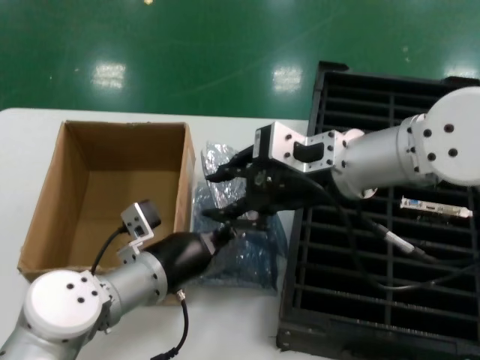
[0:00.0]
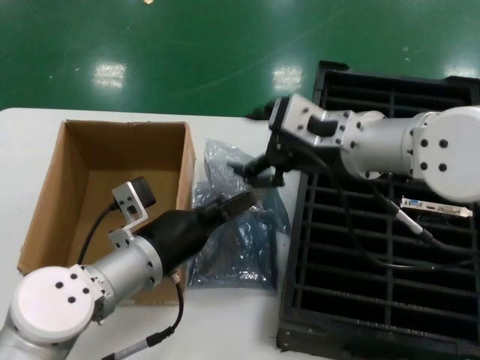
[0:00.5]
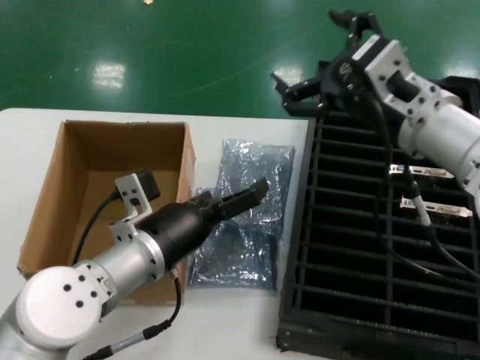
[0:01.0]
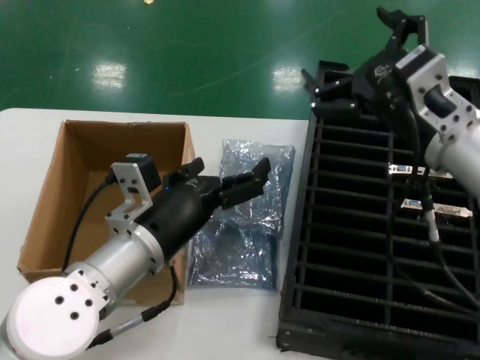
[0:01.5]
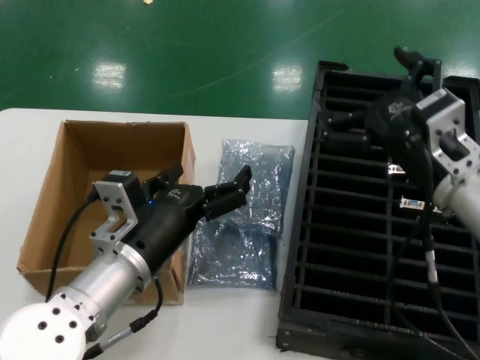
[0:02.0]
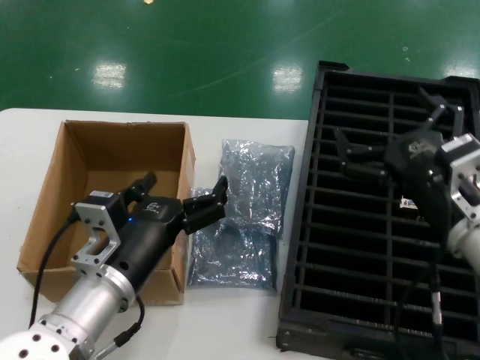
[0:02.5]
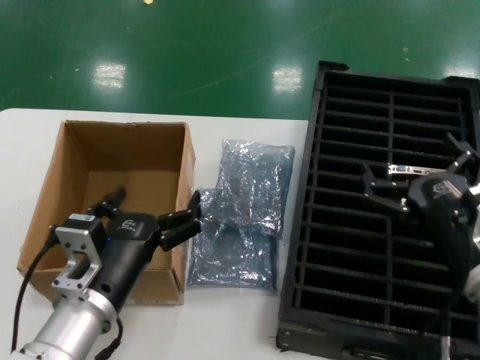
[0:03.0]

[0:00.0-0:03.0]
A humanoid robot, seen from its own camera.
Task of the whole recording: take out graphics card from box remove packaging put into black container.
Step, 0:00.0 to 0:02.5: Place the down the bag.
0:00.0 to 0:01.5: The left hand travels upward by some 5 cm. The right hand heads to the right, covering approximately 10 cm.
0:01.5 to 0:03.0: The right hand goes about 15 cm downward and backward; the left hand travels backward and downward by about 10 cm.

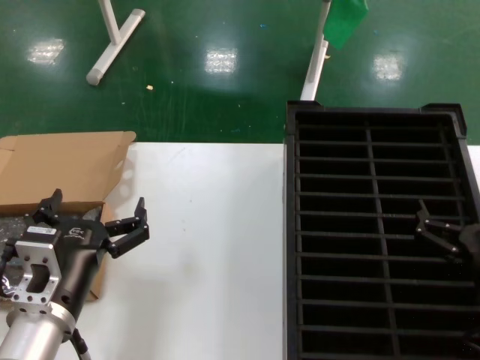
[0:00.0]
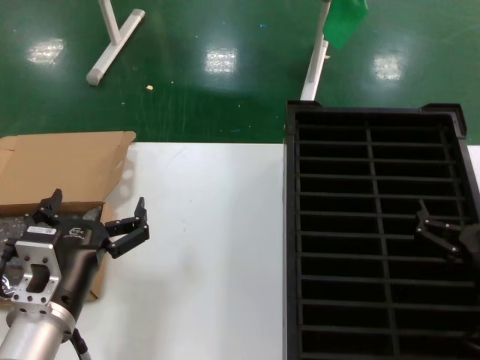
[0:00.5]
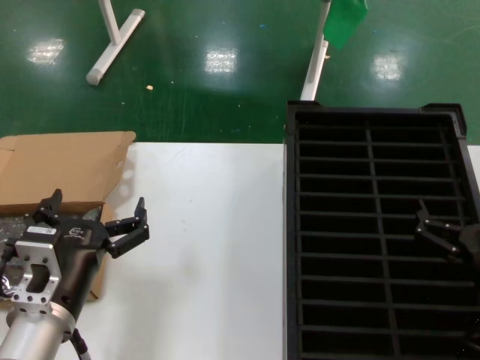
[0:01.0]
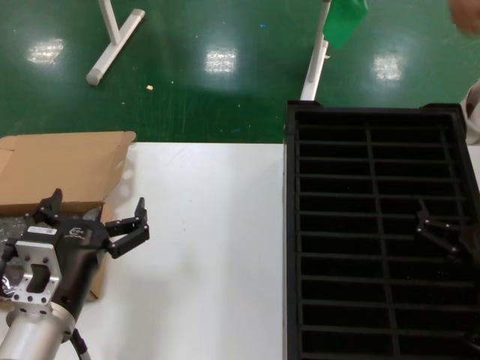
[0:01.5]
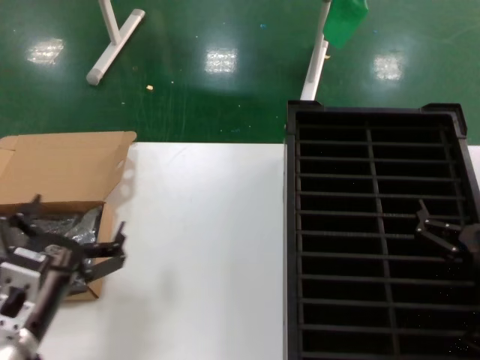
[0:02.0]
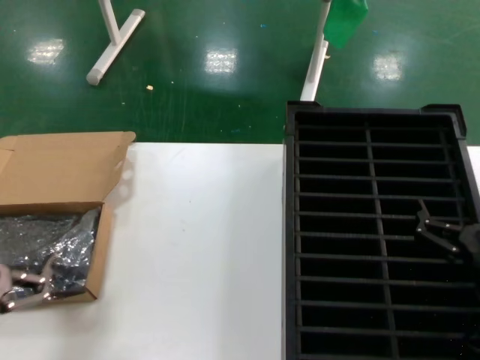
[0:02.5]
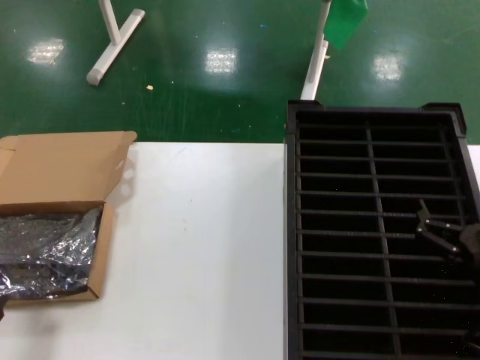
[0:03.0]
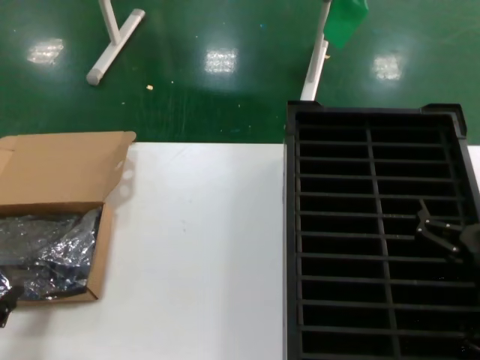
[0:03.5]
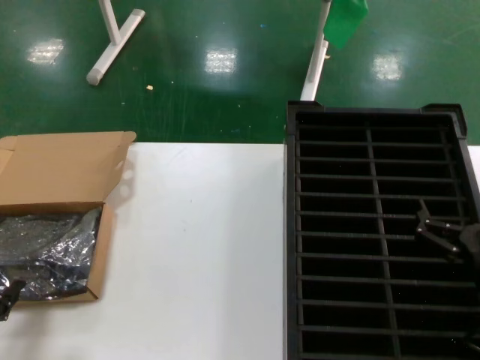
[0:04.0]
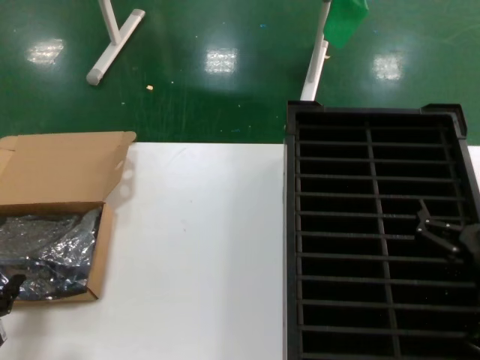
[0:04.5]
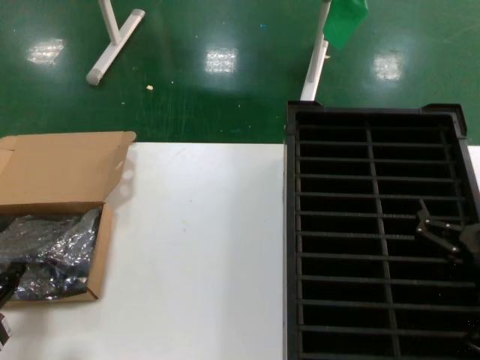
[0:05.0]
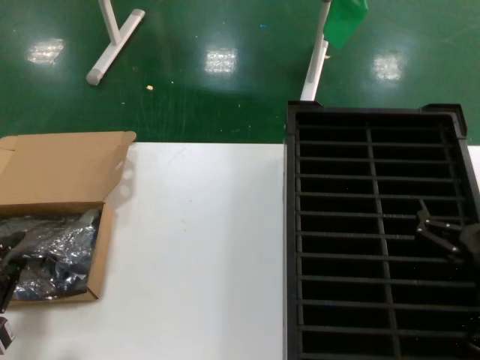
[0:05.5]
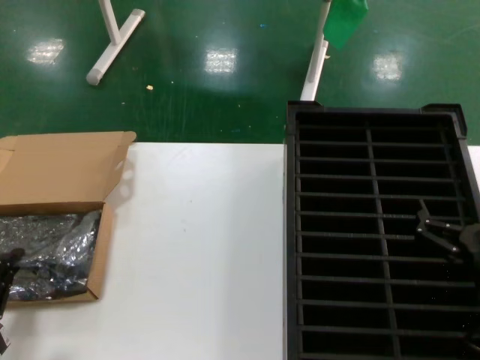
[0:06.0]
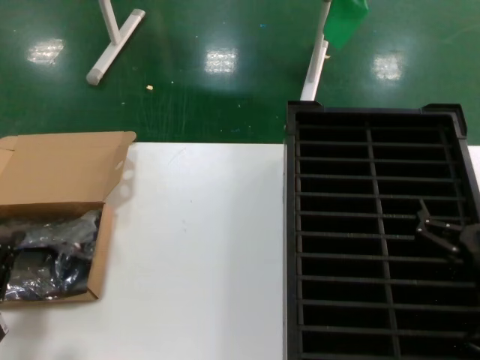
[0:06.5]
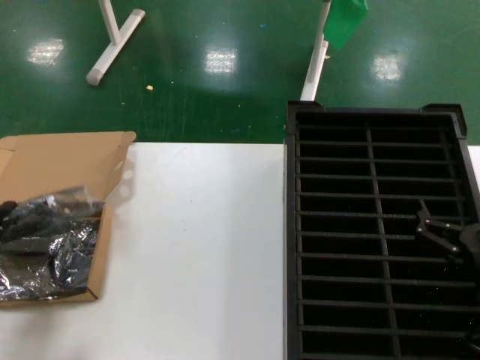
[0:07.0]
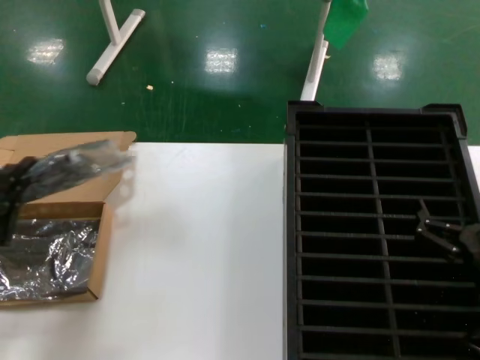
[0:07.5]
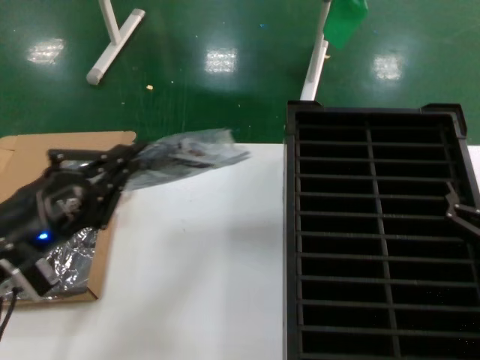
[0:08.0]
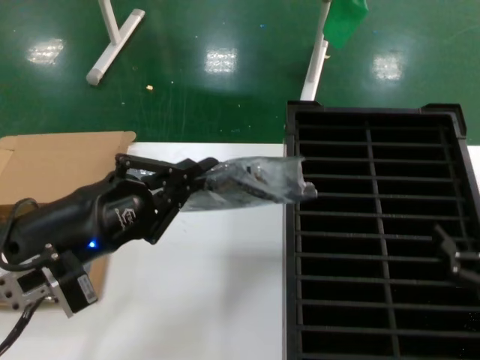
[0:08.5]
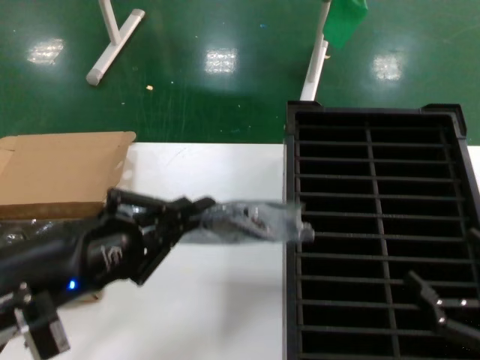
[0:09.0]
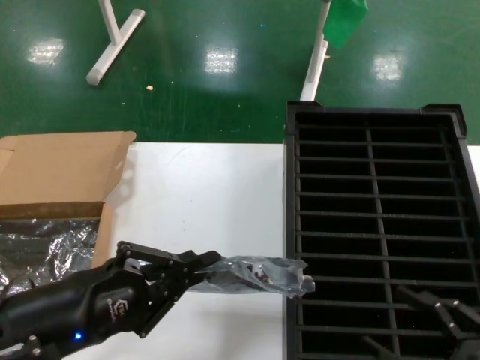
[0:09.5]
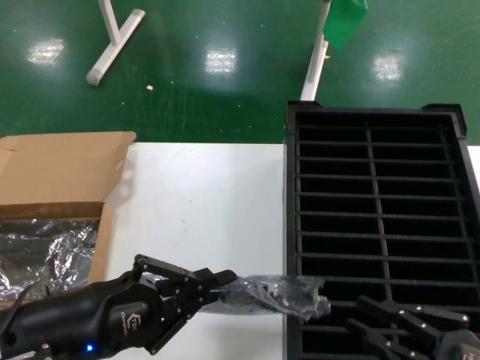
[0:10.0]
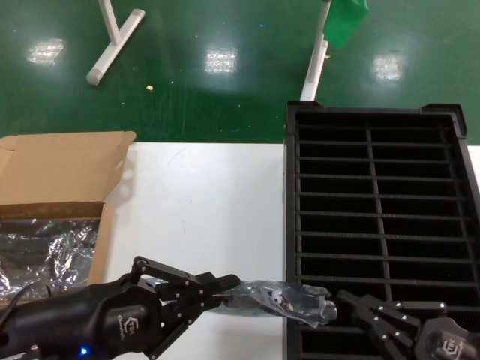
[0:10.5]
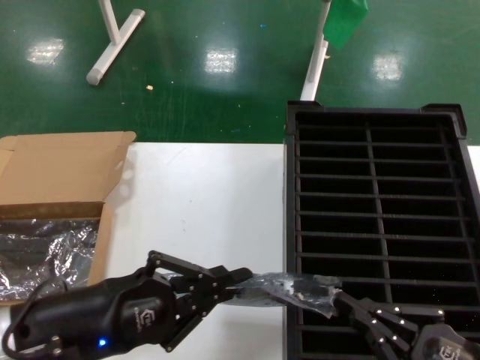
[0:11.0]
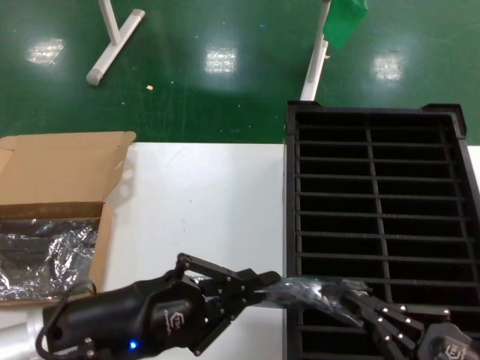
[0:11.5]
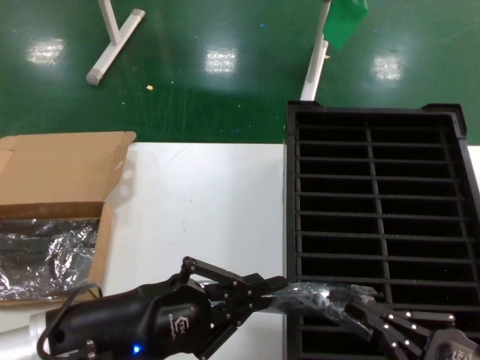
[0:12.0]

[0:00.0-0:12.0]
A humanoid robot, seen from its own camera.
Task of the whole recording: take out graphics card from box remove packaging put into black container.
Step, 0:00.0 to 0:06.0: Grasp the bag.
Step, 0:06.5 to 0:09.0: Lift the bag.
0:00.0 to 0:02.0: The hands stay close to where they were, moving slightly.
0:02.0 to 0:04.0: The left hand shifts approximately 15 cm to the left.
0:04.0 to 0:06.0: The hands make only small movements.
0:06.0 to 0:08.0: The left hand is displaced upward and to the right by about 20 cm.
0:08.0 to 0:10.0: The right hand travels backward and to the right by approximately 10 cm; the left hand changes place by some 5 cm.
0:10.0 to 0:12.0: The hands make only small movements.

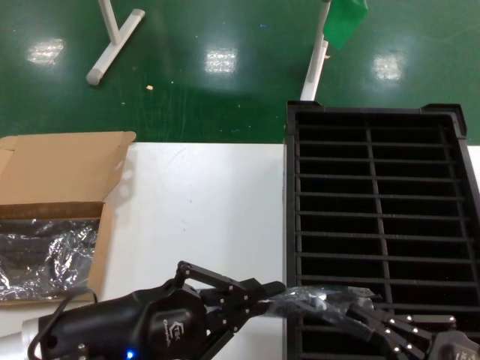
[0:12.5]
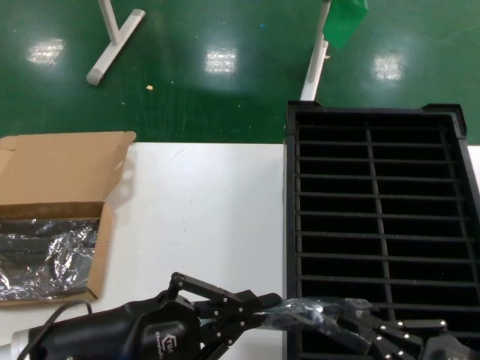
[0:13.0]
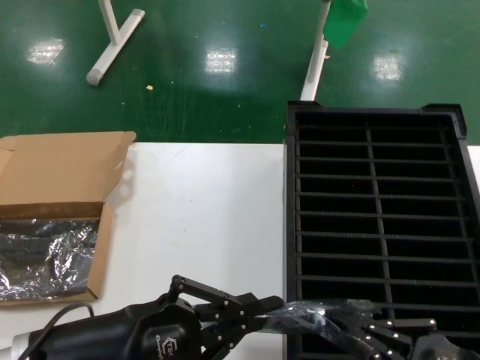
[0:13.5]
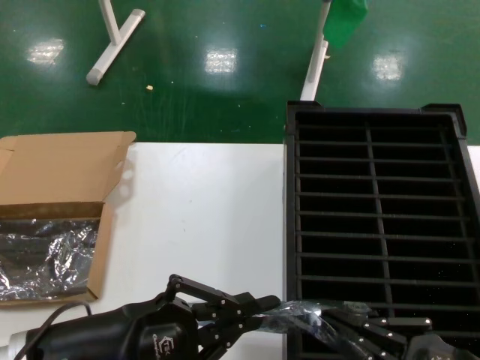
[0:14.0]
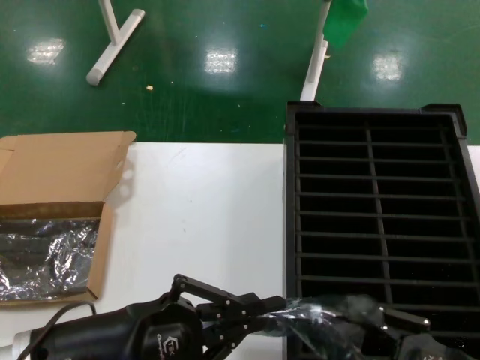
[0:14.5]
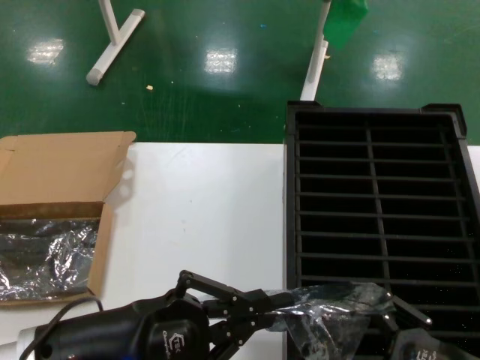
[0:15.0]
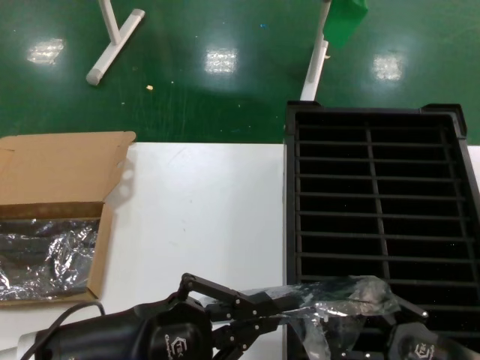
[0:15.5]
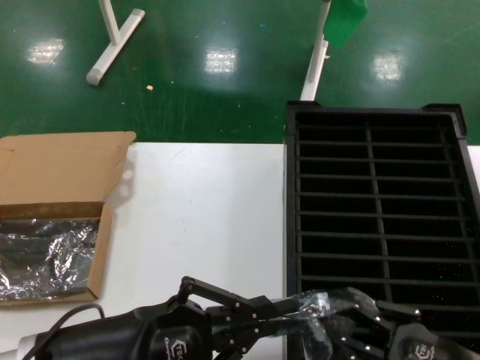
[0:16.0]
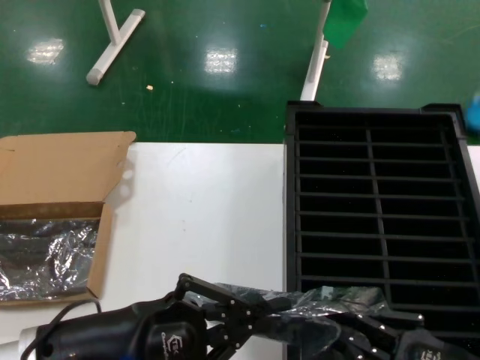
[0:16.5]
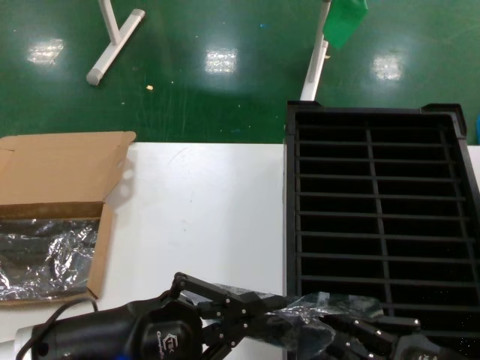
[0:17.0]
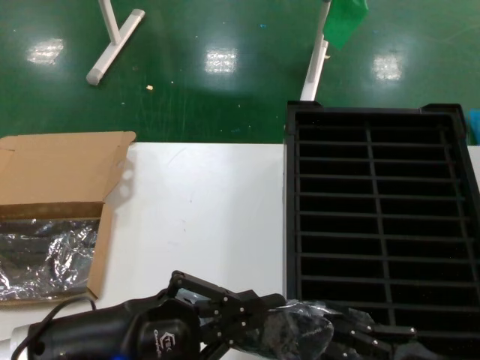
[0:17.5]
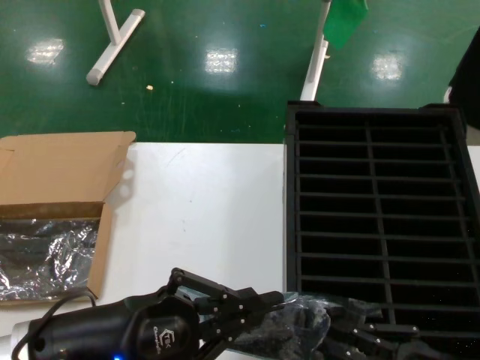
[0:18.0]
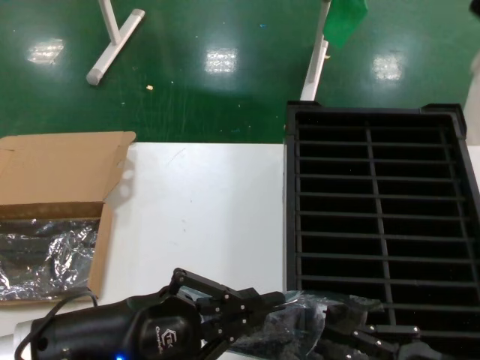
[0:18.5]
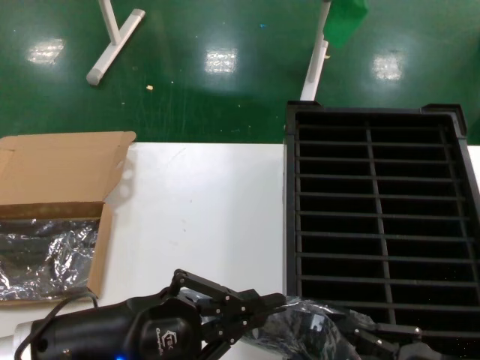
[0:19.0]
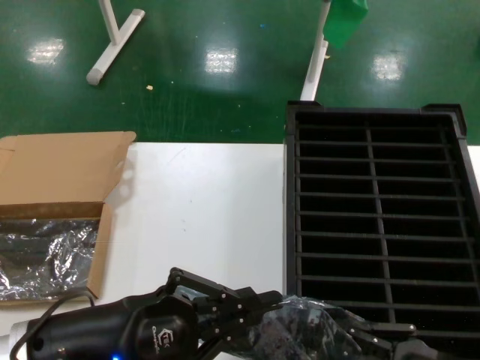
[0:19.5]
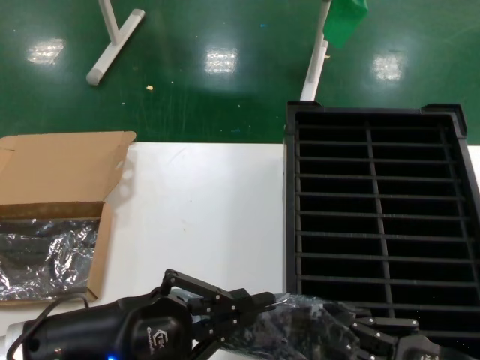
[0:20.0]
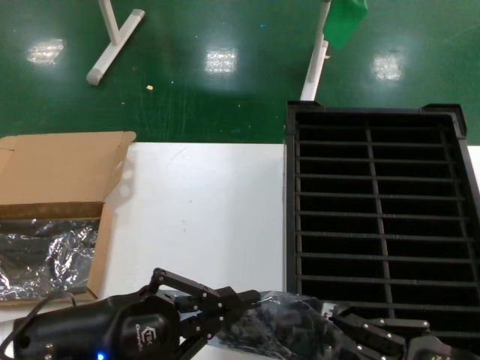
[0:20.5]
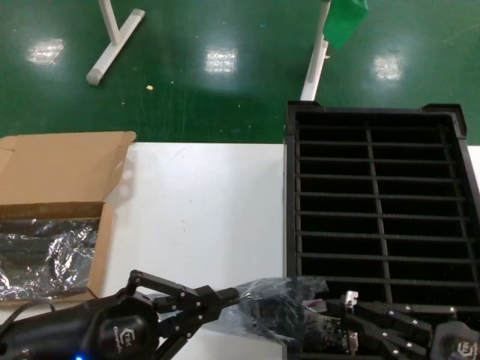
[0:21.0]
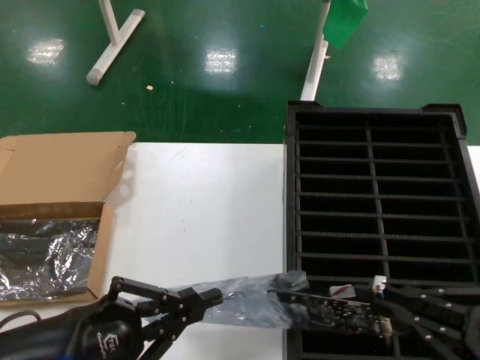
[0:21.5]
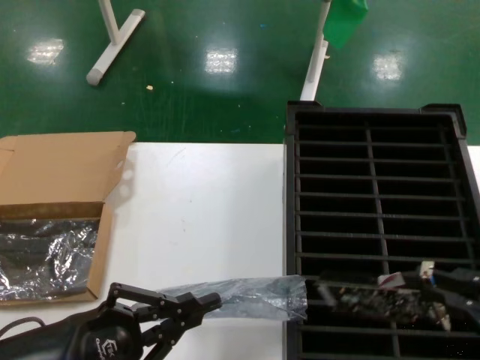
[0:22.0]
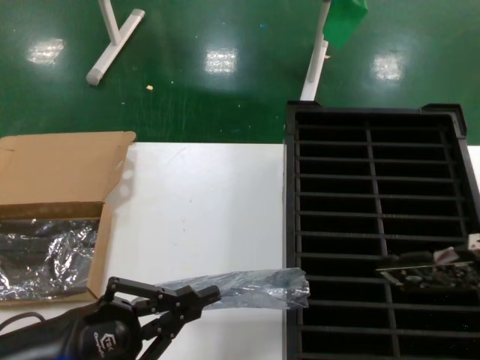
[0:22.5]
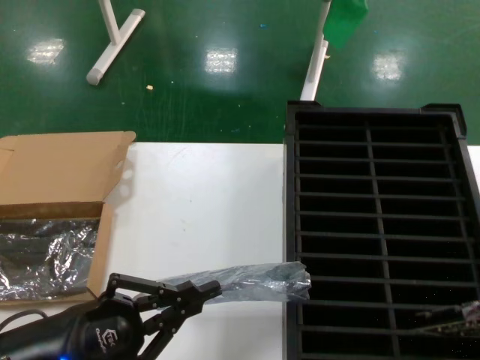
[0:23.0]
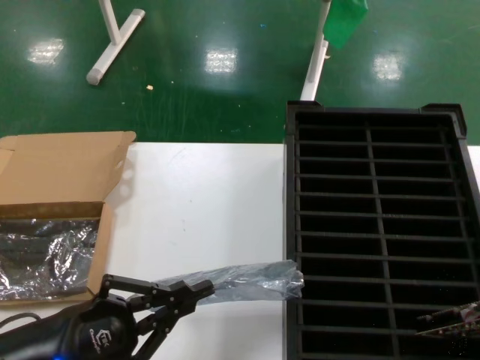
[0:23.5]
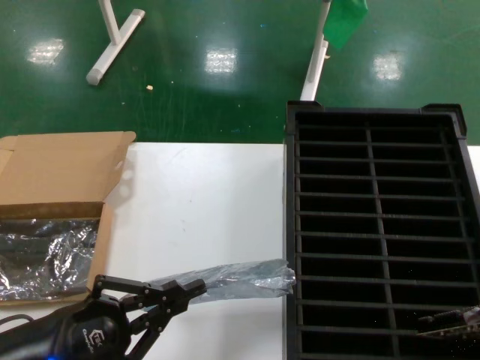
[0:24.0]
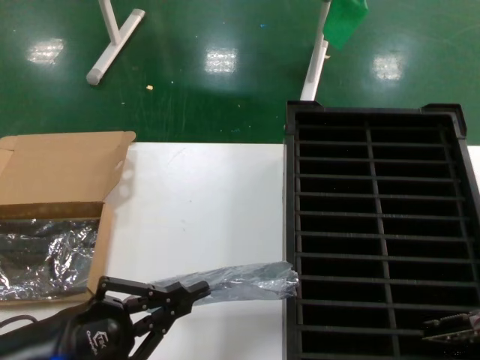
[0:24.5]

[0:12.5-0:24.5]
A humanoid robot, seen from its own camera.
Task of the whole recording: take out graphics card from box remove packaging put into black container.
Step, 0:12.5 to 0:21.5: Take out the hard disk of the bag.
0:12.5 to 0:20.5: The hands make only small movements.
0:20.5 to 0:22.5: The right hand moves upward and to the right, some 25 cm. The left hand heads downward, covering roughly 5 cm.
